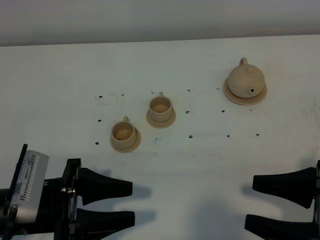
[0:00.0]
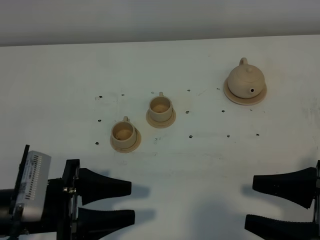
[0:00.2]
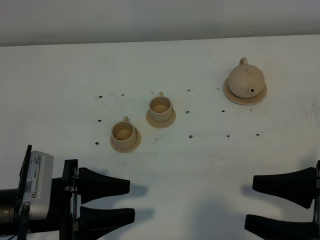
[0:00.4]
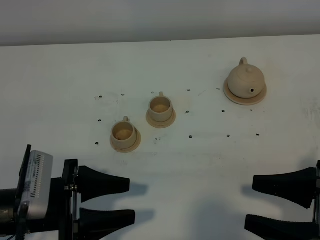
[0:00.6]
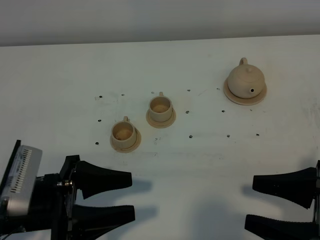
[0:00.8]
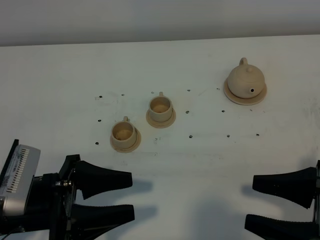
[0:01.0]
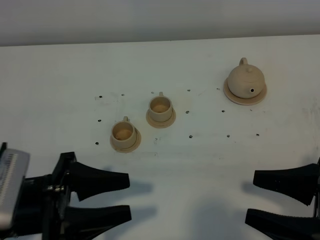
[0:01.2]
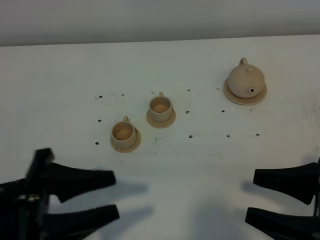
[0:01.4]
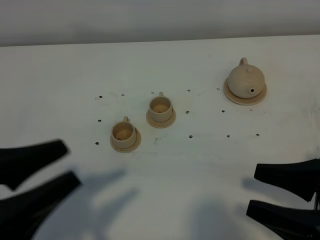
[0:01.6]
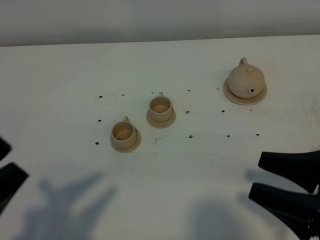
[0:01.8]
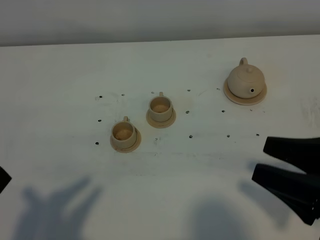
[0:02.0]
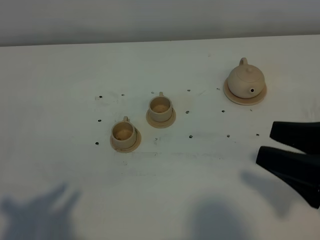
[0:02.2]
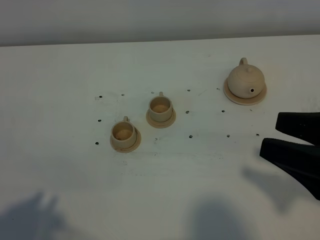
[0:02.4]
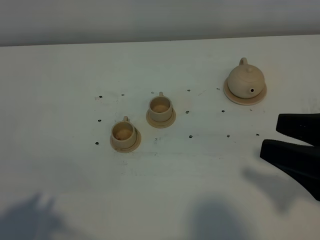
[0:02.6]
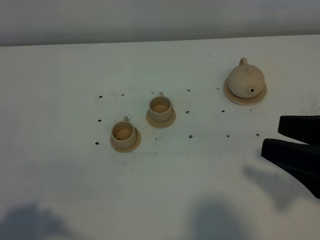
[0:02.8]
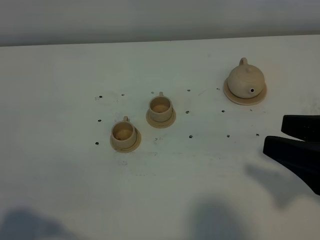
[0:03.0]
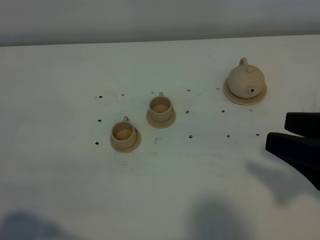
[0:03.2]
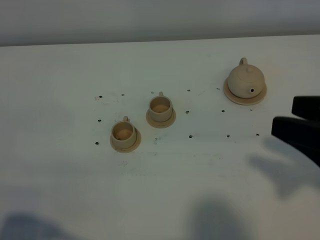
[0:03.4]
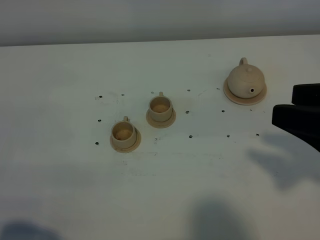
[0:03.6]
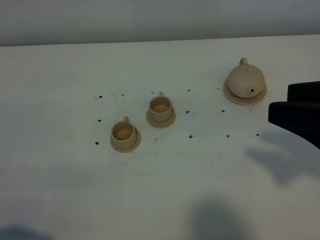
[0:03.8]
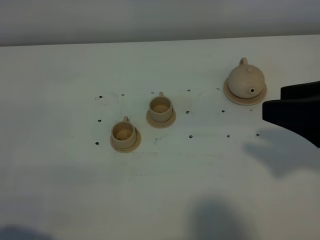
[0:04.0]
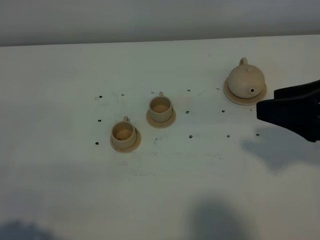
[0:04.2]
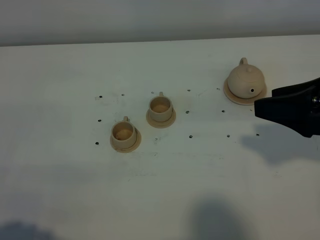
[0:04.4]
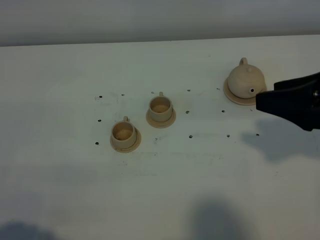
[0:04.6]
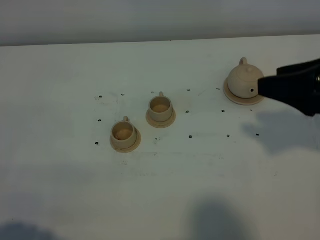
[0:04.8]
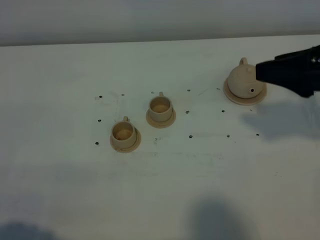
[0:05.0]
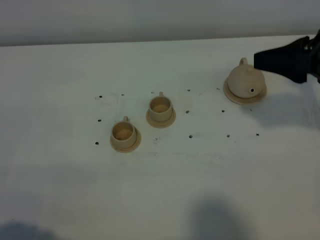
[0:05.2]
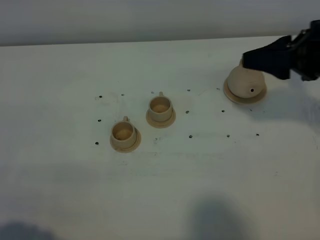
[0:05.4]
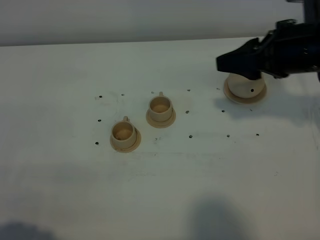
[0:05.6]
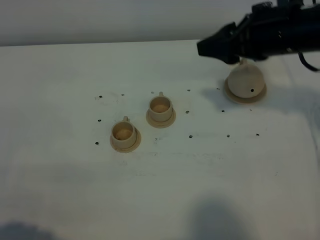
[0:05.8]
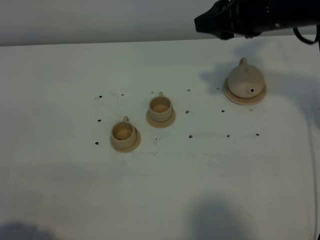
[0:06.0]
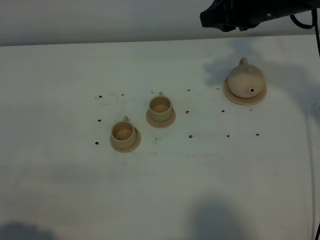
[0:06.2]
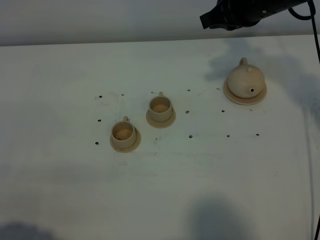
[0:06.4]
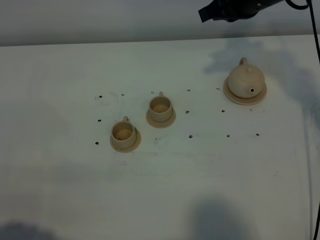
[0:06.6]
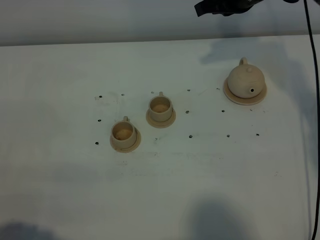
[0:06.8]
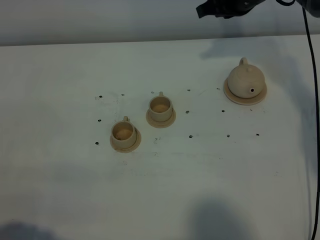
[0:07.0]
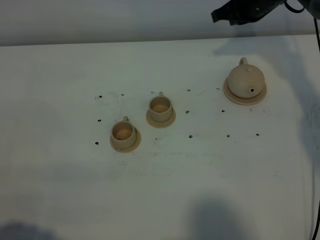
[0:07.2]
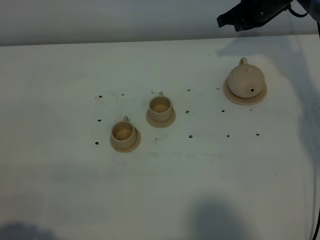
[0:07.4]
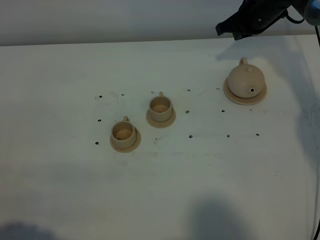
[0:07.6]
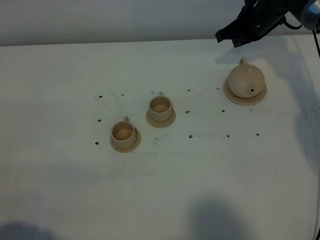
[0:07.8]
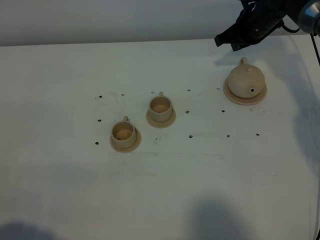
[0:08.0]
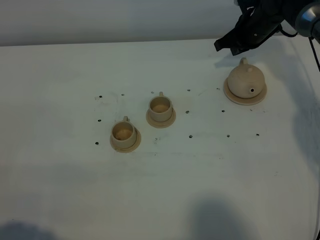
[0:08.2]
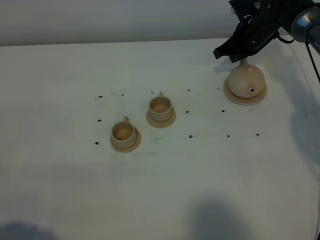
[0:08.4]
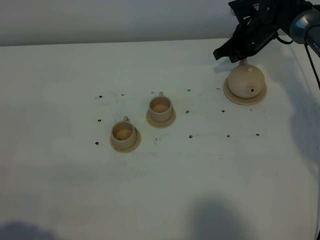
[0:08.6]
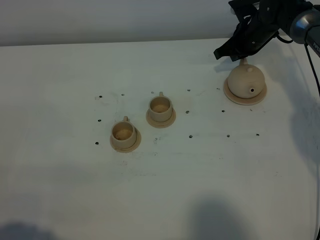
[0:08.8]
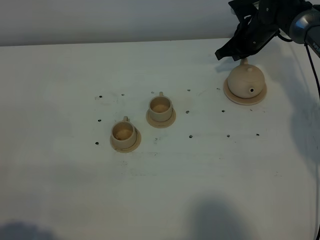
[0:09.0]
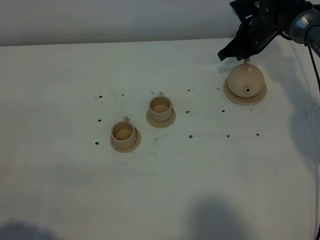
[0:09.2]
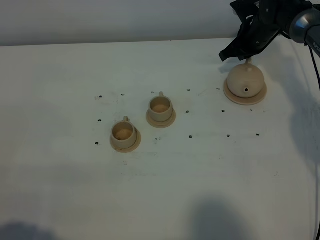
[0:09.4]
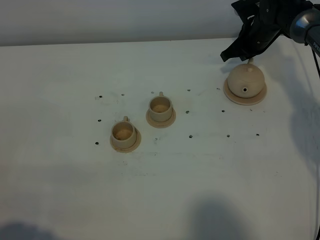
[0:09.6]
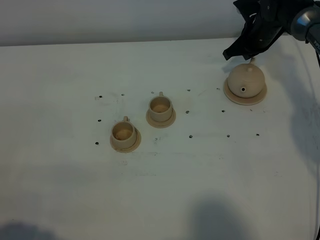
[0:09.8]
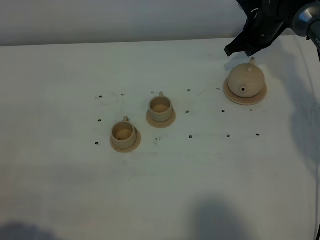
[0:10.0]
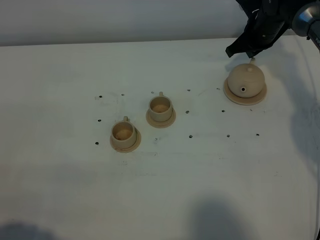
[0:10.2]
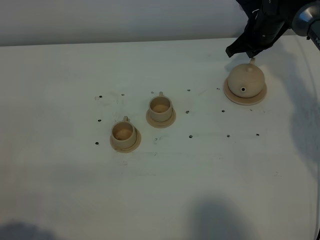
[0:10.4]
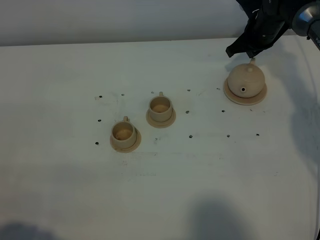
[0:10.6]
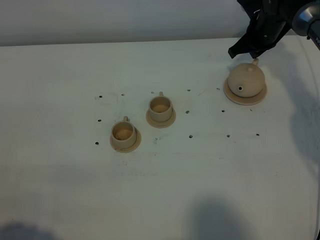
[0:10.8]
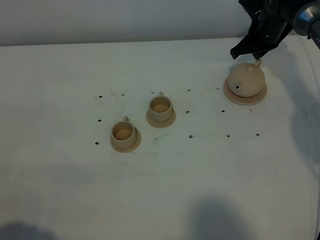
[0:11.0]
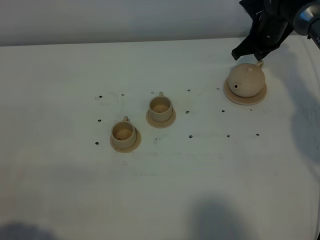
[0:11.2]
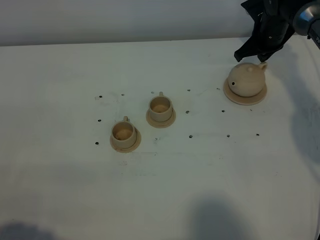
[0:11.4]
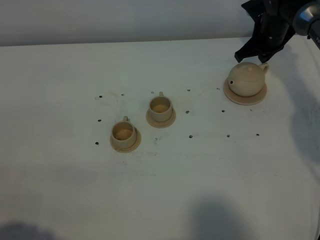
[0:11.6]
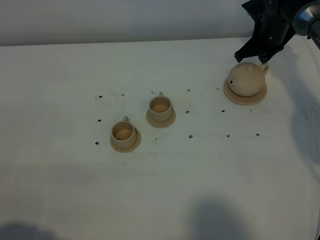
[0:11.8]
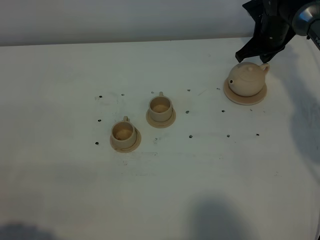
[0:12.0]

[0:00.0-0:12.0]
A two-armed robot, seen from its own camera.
Task of the whole recording: grasp the brown teapot and pour the tea into the two brown teacups one by one, put the brown teapot back in its original place.
0:00.0 to 0:01.6: The left gripper moves upward and backward, approximately 10 cm.
0:01.6 to 0:03.0: The left gripper travels backward and to the left by about 10 cm, and closes up. Meanwhile the right gripper shifts about 5 cm upward.
0:03.0 to 0:04.4: The right gripper goes approximately 10 cm forward.
0:04.4 to 0:06.0: The right gripper heads forward and to the left, covering roughly 20 cm.
0:06.0 to 0:07.6: The right gripper moves forward and downward, approximately 20 cm, and closes.
0:07.6 to 0:09.0: The right gripper shifts some 5 cm downward.
0:09.0 to 0:12.0: There are only small adjustments of the grippers.

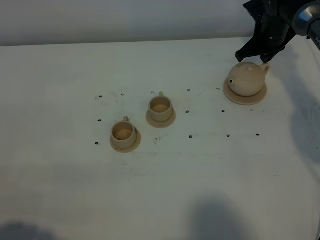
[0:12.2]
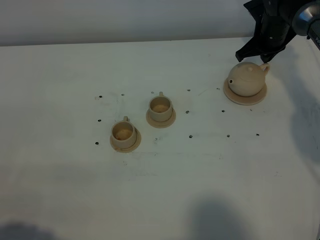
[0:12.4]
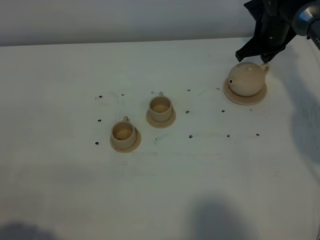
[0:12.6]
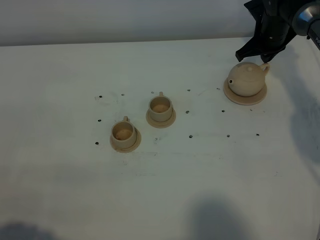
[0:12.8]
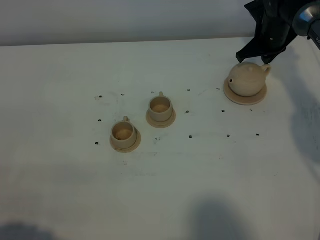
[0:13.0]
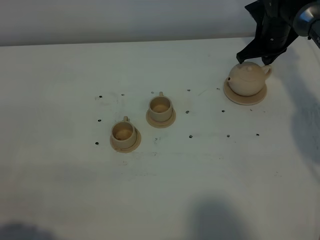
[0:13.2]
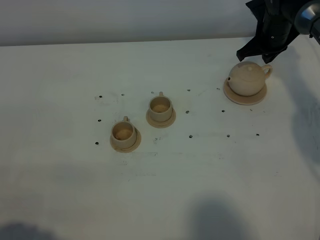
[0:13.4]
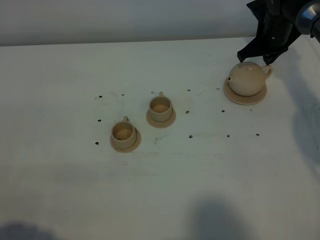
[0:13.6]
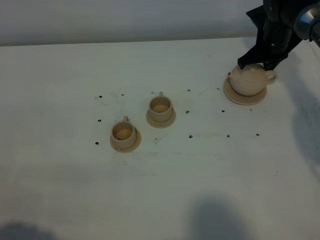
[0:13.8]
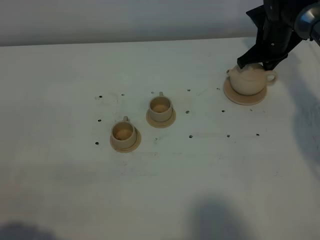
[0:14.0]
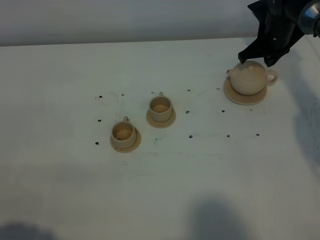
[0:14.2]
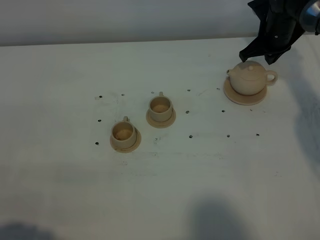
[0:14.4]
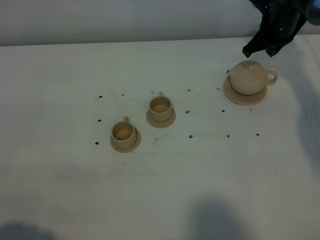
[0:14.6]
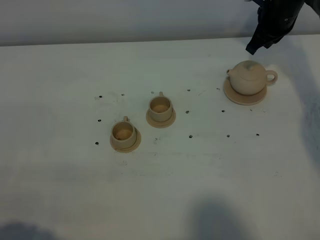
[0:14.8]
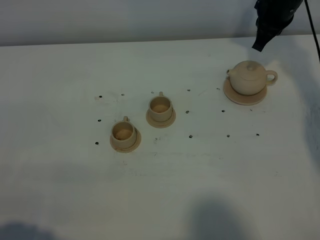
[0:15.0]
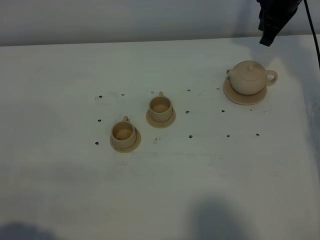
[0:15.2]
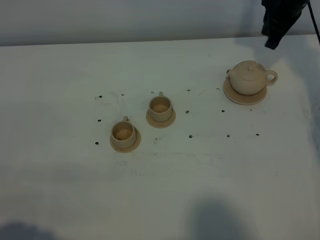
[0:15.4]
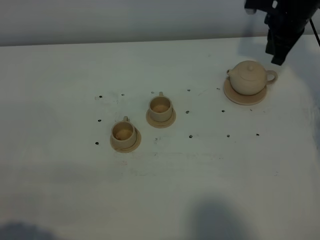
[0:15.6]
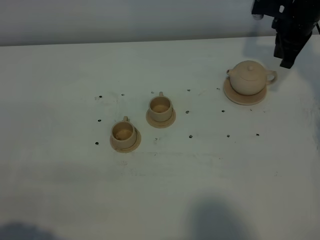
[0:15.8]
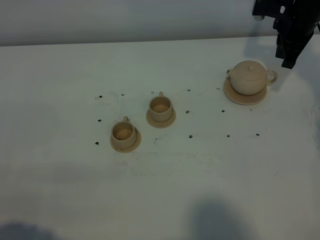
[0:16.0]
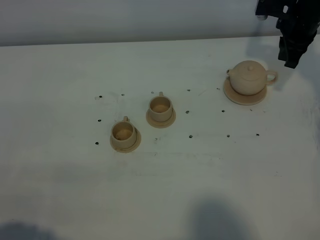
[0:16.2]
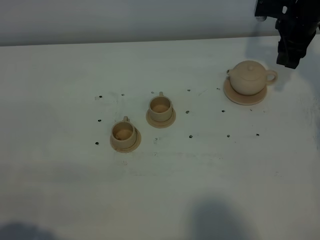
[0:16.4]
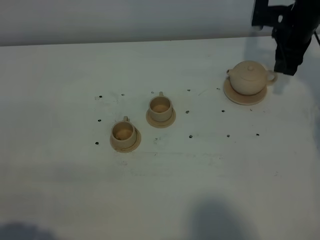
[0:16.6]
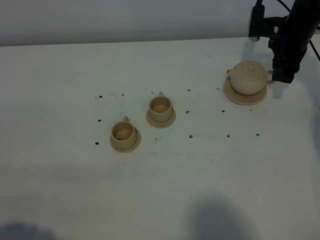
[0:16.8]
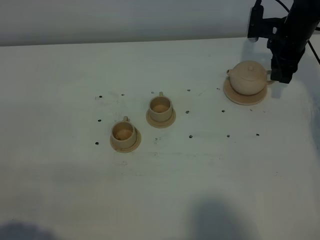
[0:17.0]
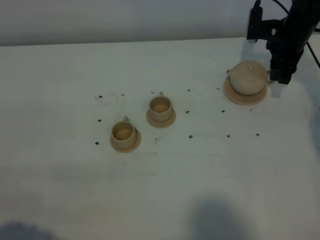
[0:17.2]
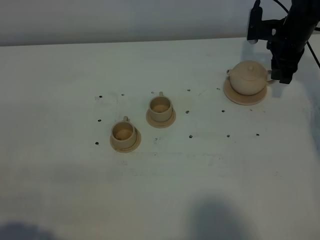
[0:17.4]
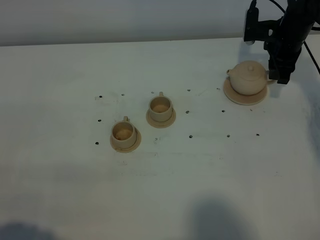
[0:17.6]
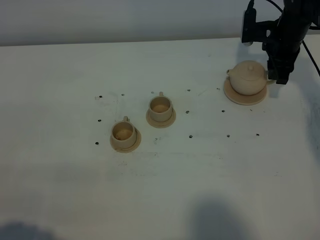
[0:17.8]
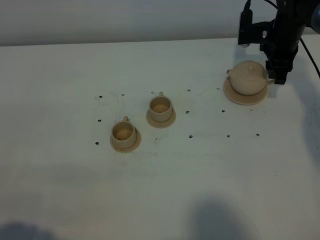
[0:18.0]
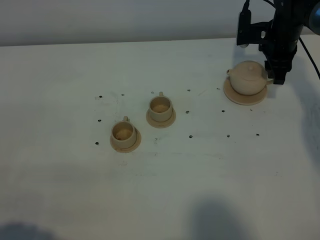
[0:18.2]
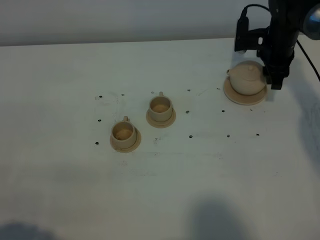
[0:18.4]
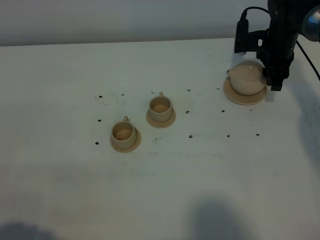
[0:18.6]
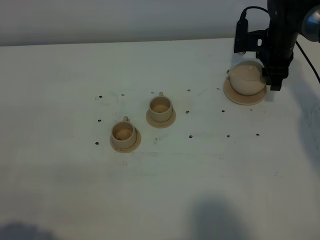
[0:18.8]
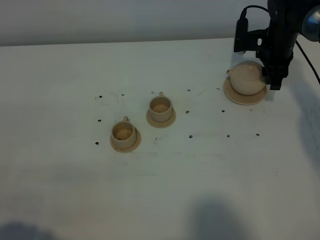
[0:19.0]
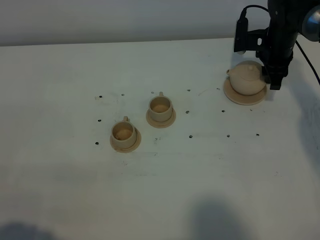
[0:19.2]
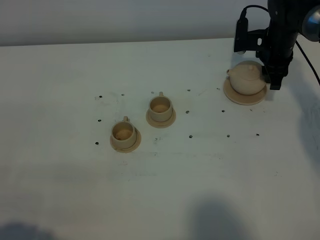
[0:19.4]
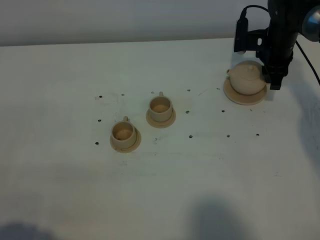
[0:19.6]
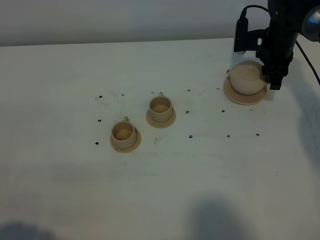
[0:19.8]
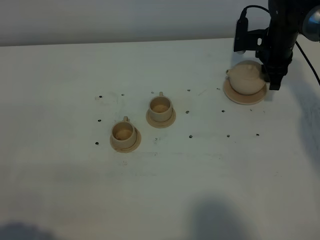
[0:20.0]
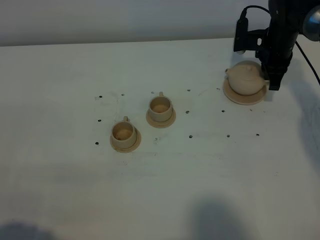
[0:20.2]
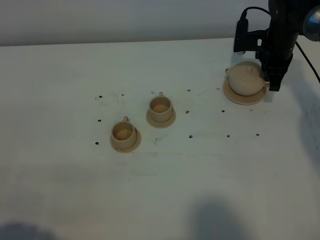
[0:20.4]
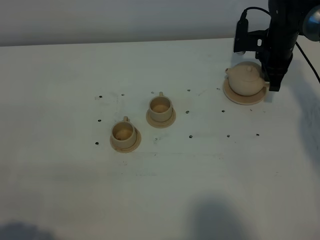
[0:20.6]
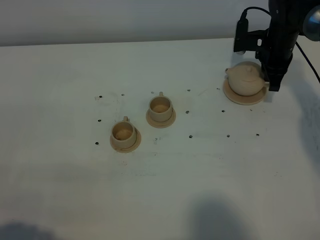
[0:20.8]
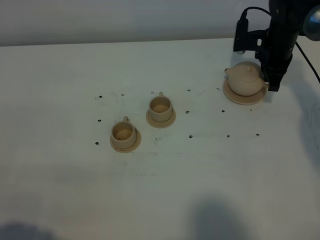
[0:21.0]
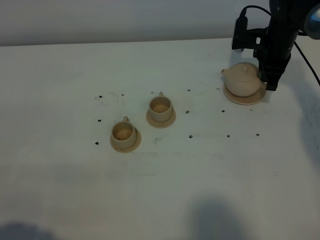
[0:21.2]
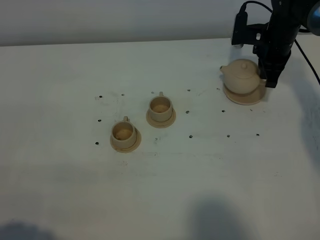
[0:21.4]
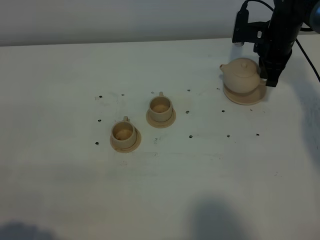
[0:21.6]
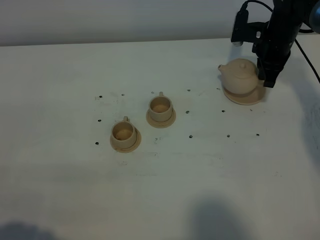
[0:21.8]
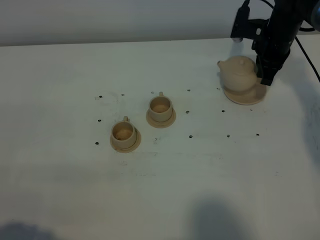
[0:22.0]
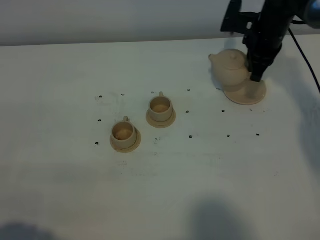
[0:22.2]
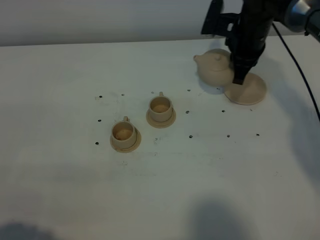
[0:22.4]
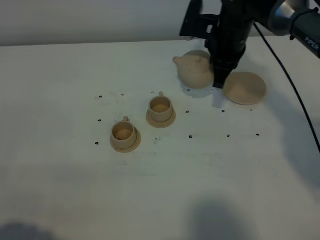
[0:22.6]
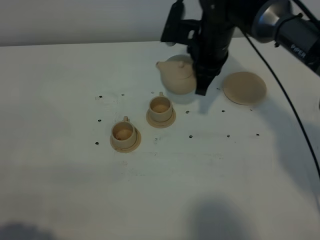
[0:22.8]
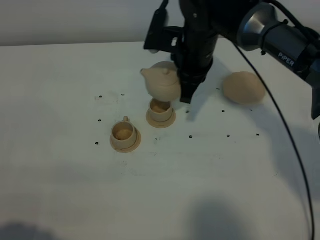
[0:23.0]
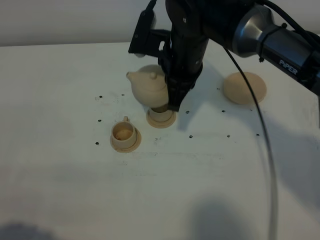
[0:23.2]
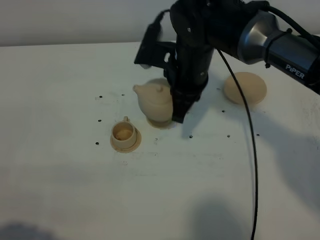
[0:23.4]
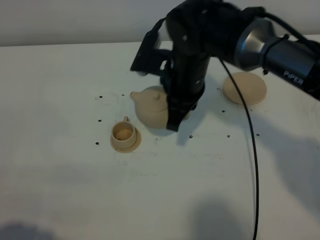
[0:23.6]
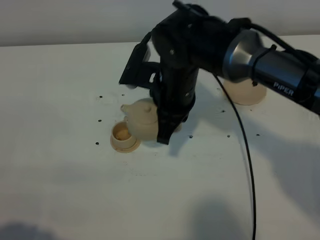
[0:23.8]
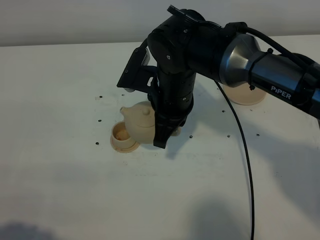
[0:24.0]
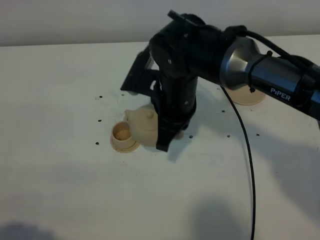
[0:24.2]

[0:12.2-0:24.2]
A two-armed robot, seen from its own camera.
Task of the whole recording: grasp the brown teapot and pour the tea into the two brown teacups one by one, put the brown teapot back in its original place.
Step, 0:12.2 to 0:21.4: Pick up the teapot with the right gripper.
0:12.2 to 0:13.8: The grippers move only a little.
0:13.8 to 0:15.2: The right gripper is displaced upward by about 10 cm.
0:15.2 to 0:16.6: The right gripper moves downward, approximately 5 cm, and opens up.
0:16.6 to 0:19.8: The grippers stay close to where they were, moving slightly.
0:19.8 to 0:21.2: The right gripper closes.
0:21.2 to 0:22.6: The right gripper heads to the left, upward and backward, covering roughly 15 cm.
0:22.6 to 0:24.2: The right gripper moves backward and to the left, approximately 15 cm.
